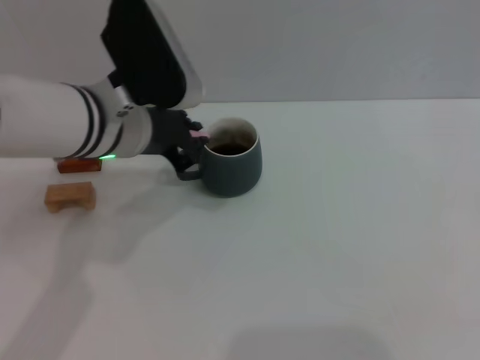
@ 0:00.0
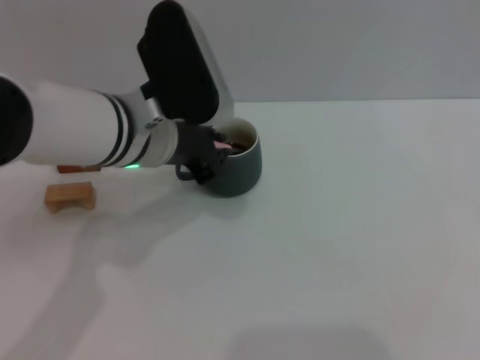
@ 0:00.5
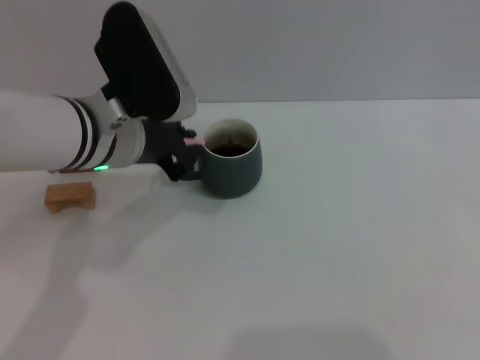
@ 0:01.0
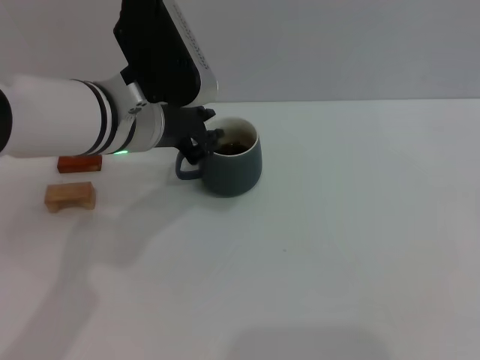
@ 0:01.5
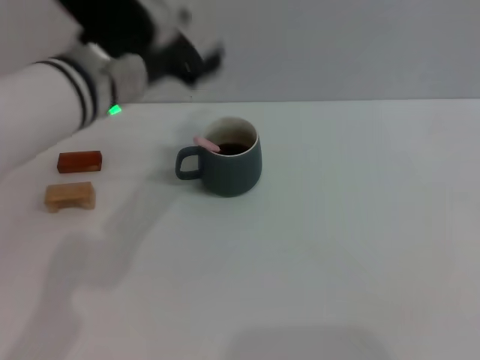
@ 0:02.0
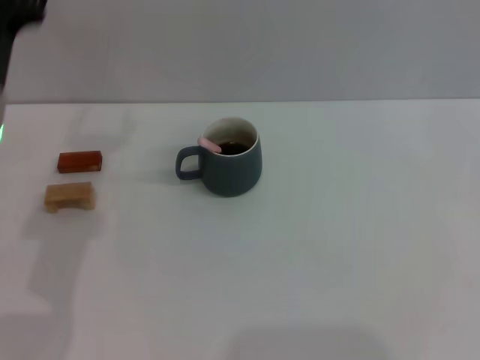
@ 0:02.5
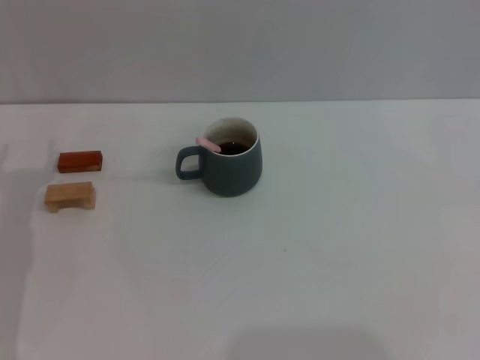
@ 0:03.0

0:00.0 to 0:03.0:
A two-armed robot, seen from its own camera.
Task of the whole recording: Move the grey cup to the center, lift the pink spoon, stir it three times in the cup, and put the spoon into the cup.
Step, 0:00.0 to 0:02.0: Stir the coffee in the cup with the left gripper.
0:00.0 to 0:01.5: The grippers move only a little.
0:01.5 to 0:03.0: The left gripper travels to the left and downward by roughly 20 cm, and opens.
